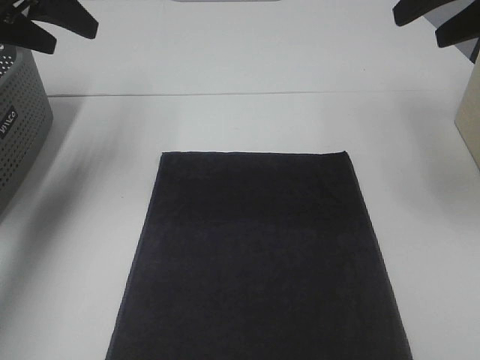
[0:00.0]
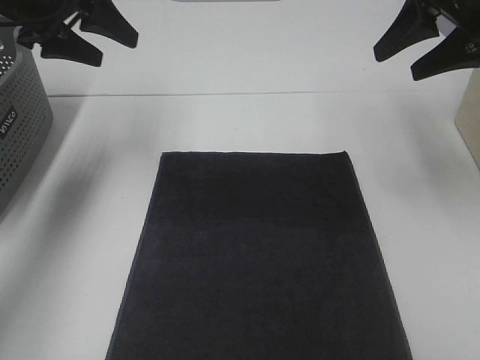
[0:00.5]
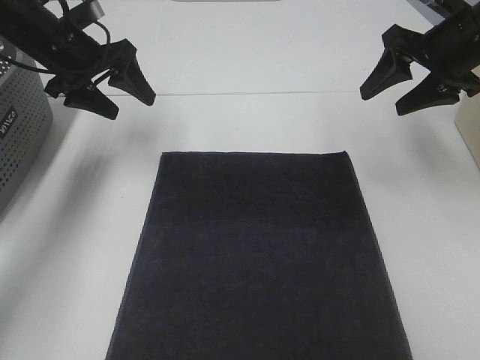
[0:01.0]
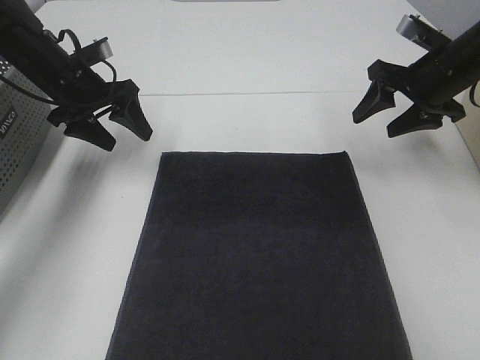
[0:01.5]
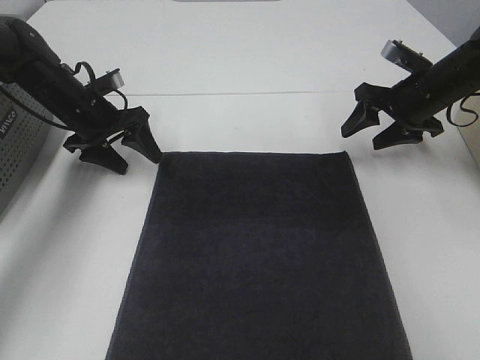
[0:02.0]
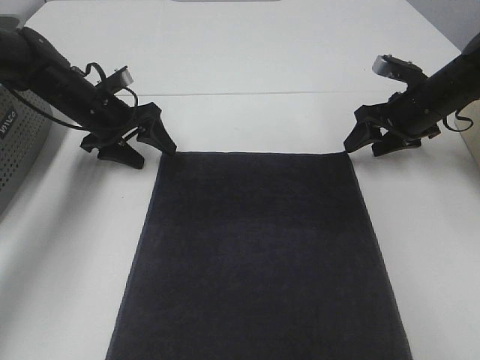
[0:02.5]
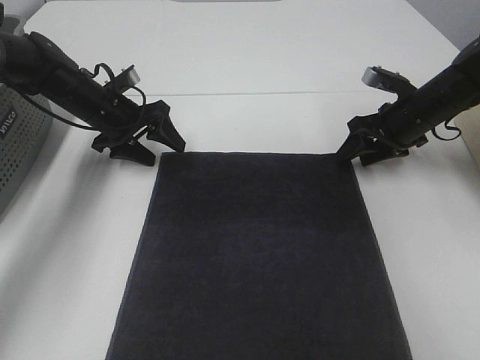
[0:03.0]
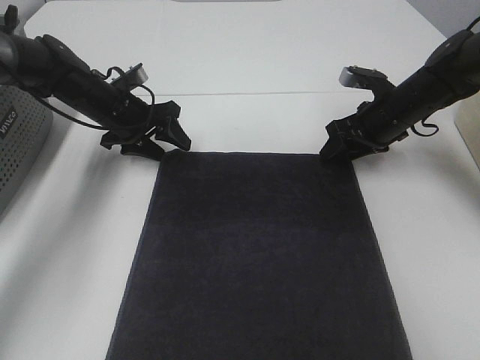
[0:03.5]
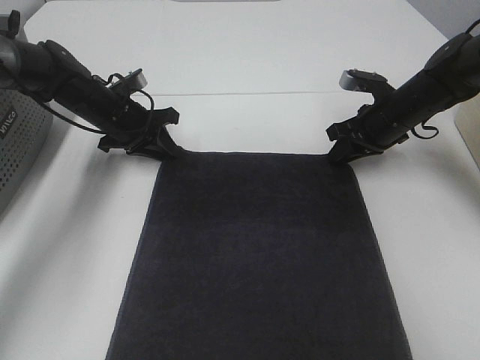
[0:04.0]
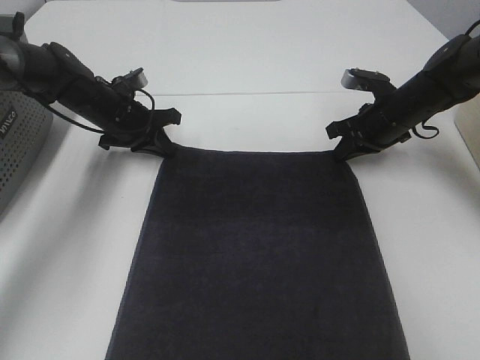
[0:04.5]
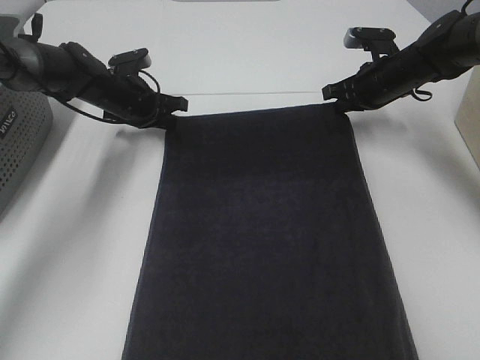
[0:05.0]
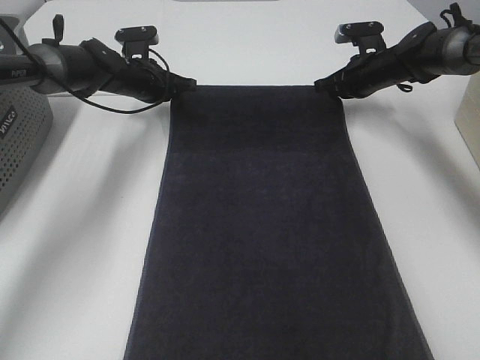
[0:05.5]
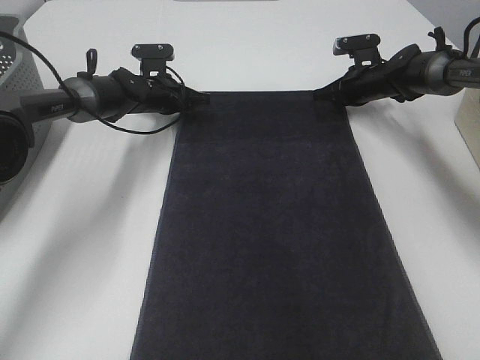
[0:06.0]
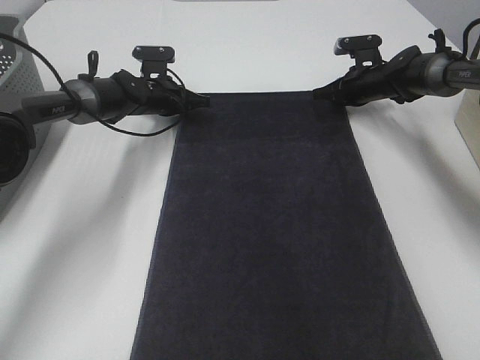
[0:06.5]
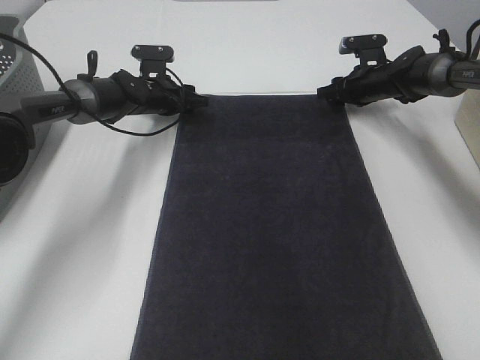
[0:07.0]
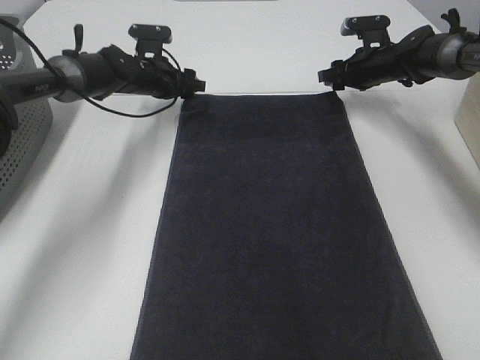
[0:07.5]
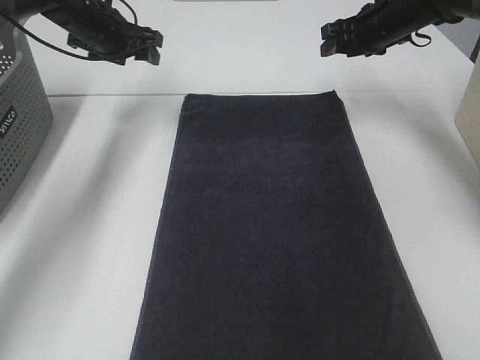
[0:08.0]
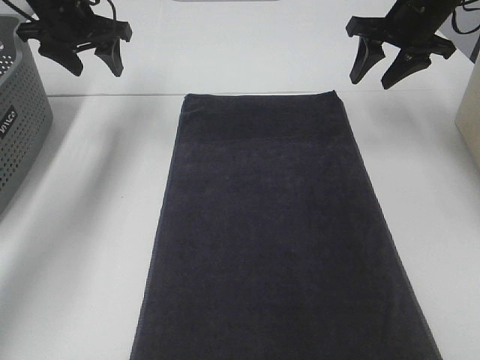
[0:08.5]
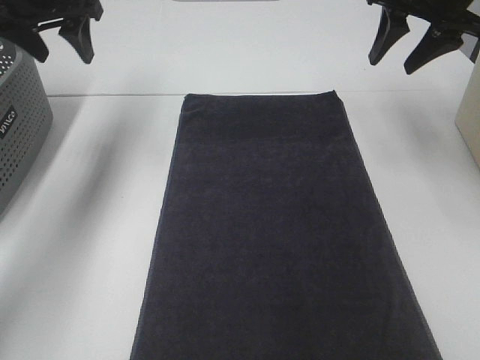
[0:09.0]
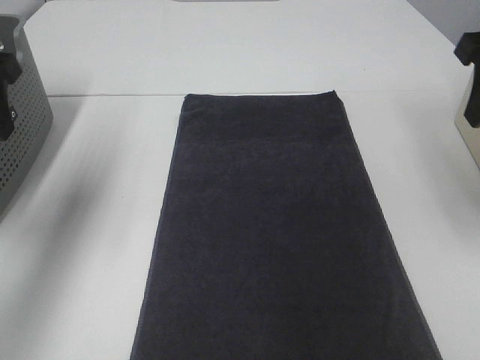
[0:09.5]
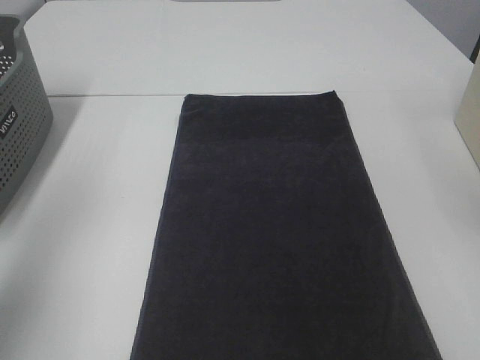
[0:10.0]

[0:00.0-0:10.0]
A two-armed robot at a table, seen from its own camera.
Task of the whole recording: Remove the towel and place it.
0:00.0 to 0:02.0: The left gripper heads downward, covering some 20 cm. Meanwhile the right gripper is displaced downward and forward by some 25 cm.
0:02.0 to 0:04.0: The right gripper moves approximately 5 cm, and closes its fingers. Meanwhile the left gripper closes.
0:04.0 to 0:06.0: The grippers both shift forward by some 10 cm.
0:06.0 to 0:08.0: The left gripper travels upward and to the left by about 15 cm, and opens its fingers, while the right gripper goes roughly 10 cm upward, and opens up.
0:08.0 to 0:10.0: Both grippers move backward, about 40 cm.

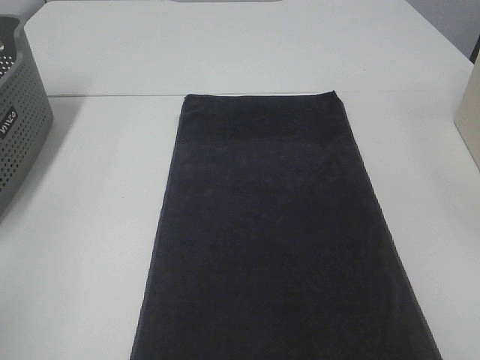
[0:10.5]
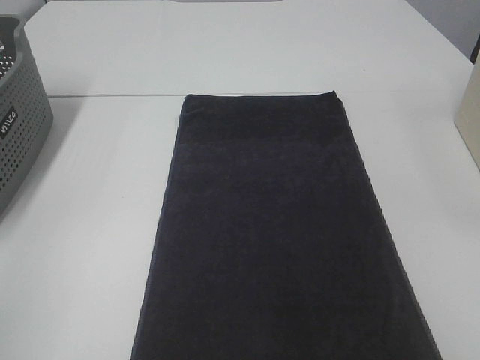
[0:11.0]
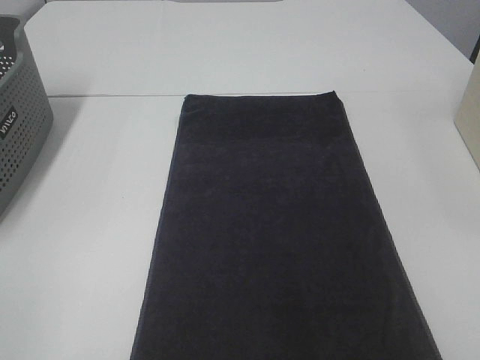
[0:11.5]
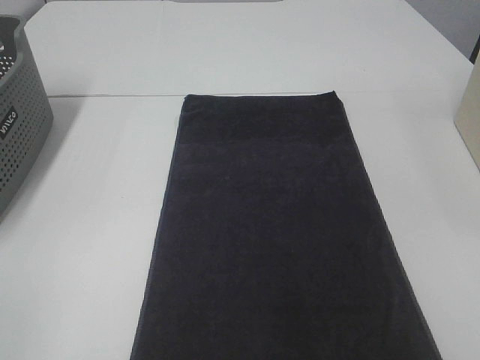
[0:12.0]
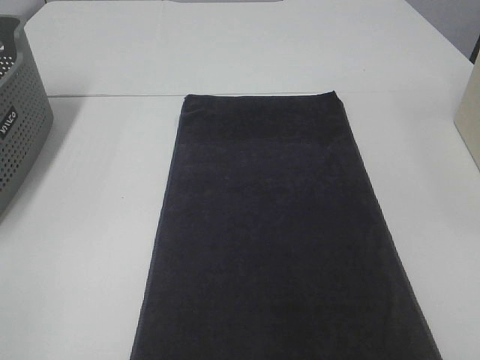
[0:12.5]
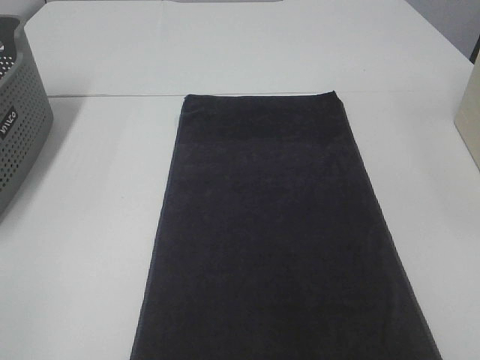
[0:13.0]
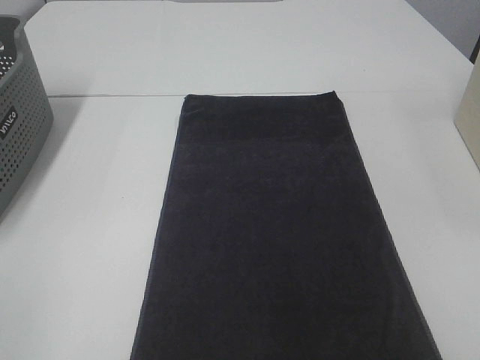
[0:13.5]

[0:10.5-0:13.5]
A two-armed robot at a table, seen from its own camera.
Task of the whole recording: Remove the towel and place it.
0:12.0 to 0:13.5: Both grippers stay about where they are.

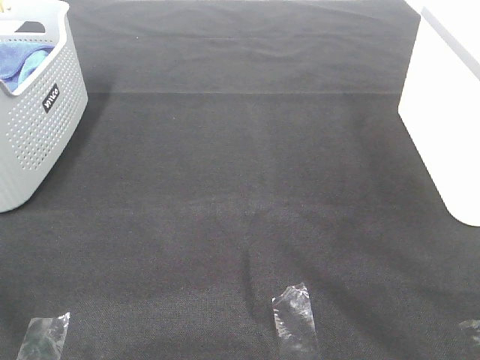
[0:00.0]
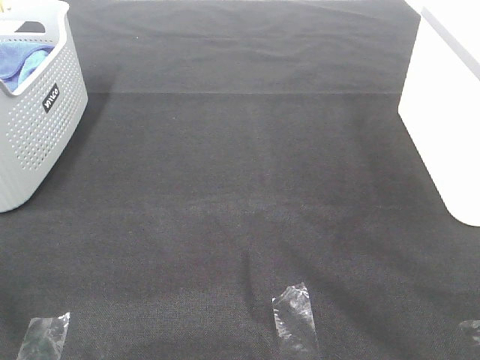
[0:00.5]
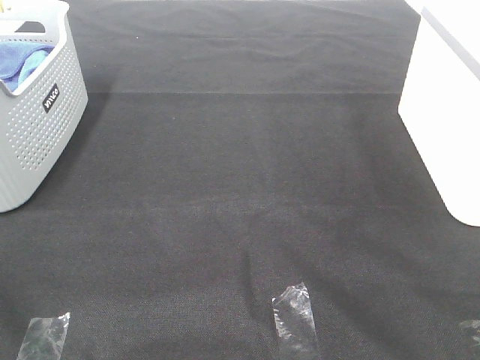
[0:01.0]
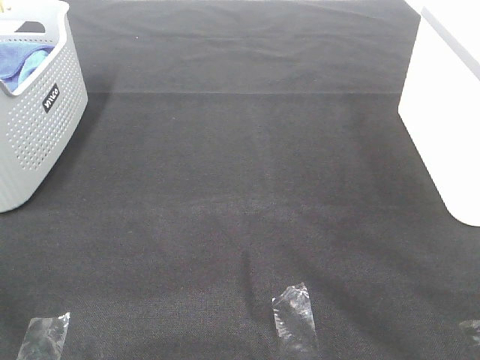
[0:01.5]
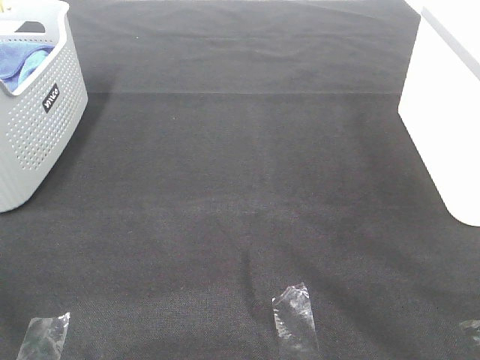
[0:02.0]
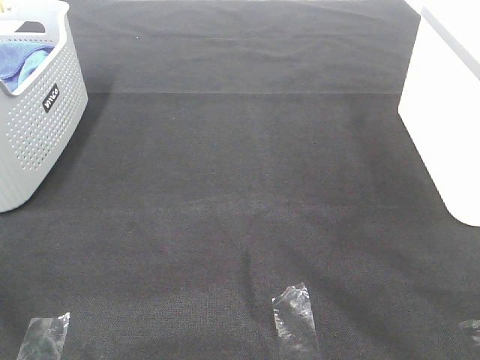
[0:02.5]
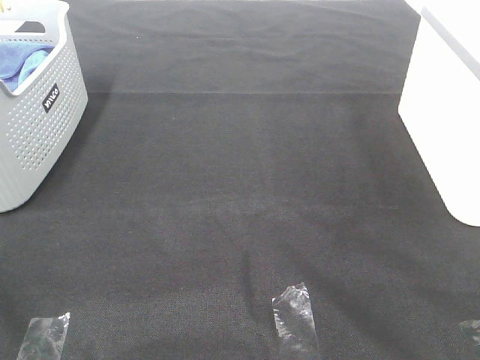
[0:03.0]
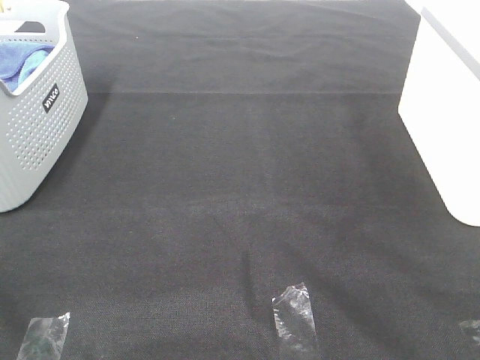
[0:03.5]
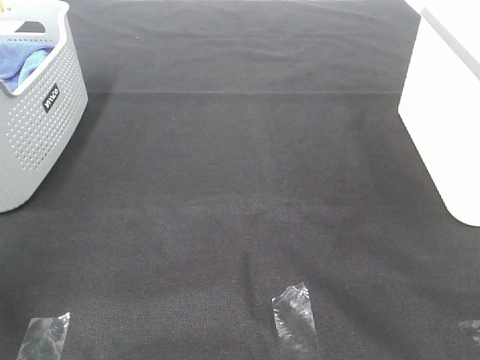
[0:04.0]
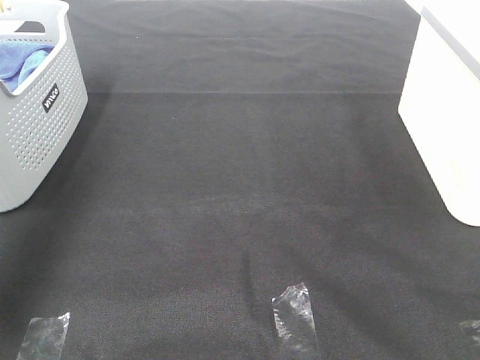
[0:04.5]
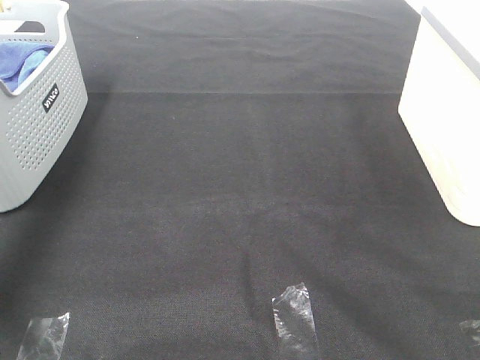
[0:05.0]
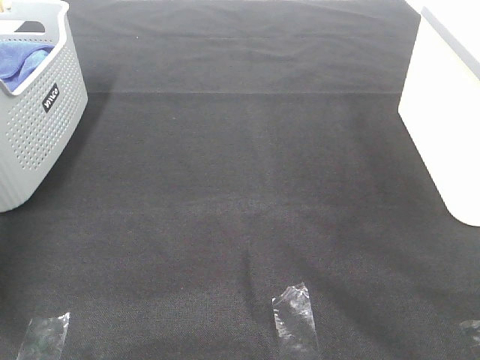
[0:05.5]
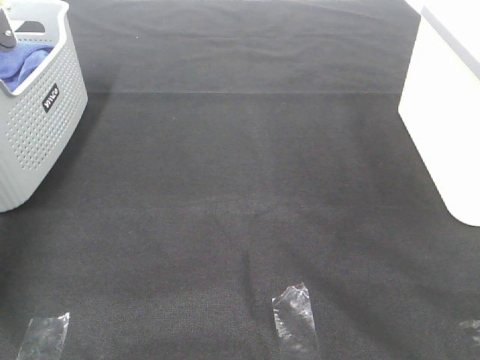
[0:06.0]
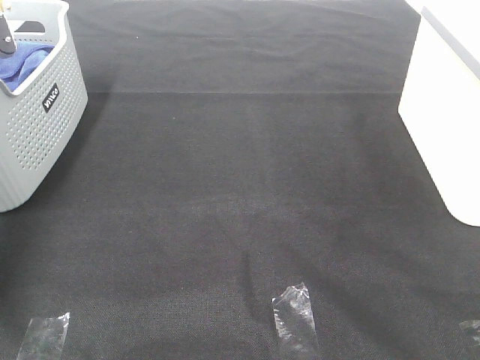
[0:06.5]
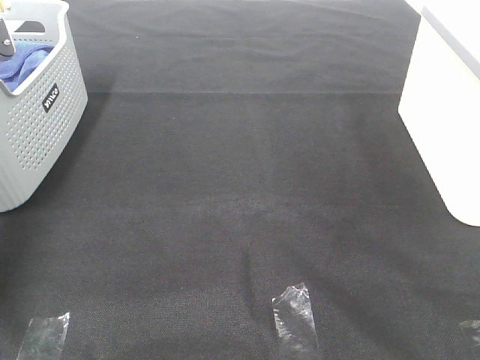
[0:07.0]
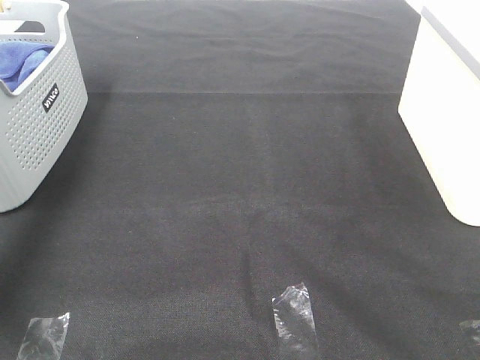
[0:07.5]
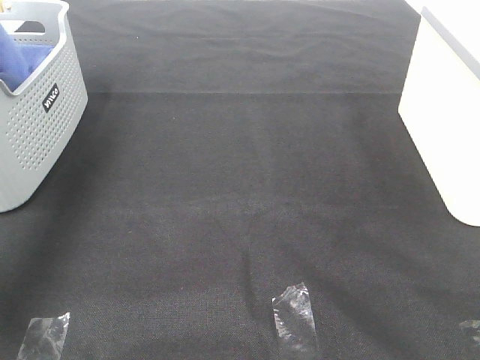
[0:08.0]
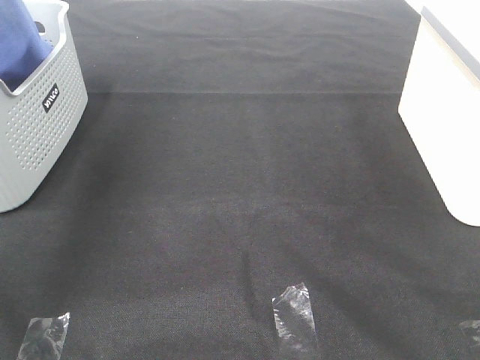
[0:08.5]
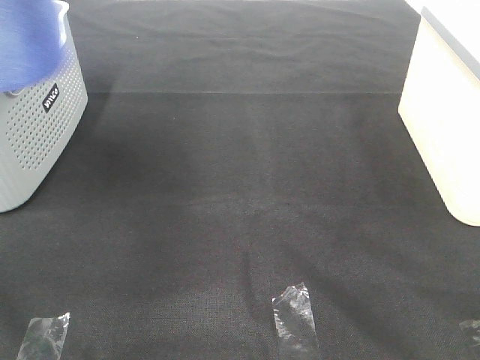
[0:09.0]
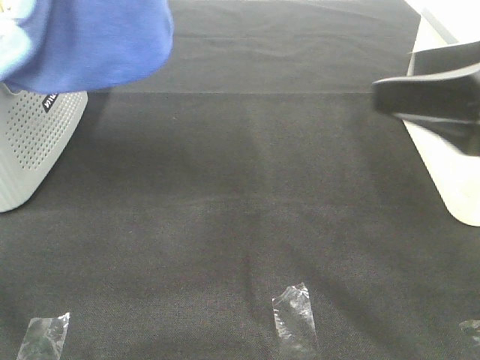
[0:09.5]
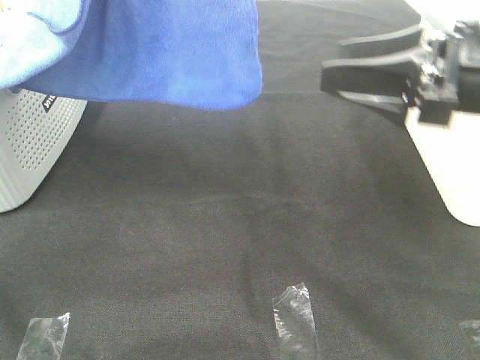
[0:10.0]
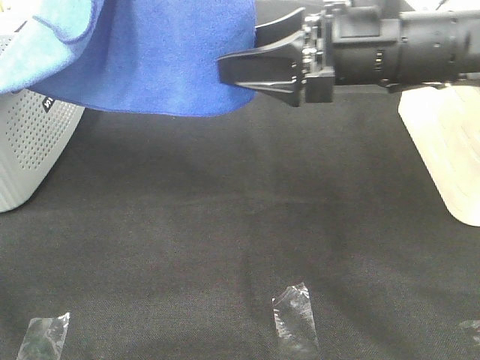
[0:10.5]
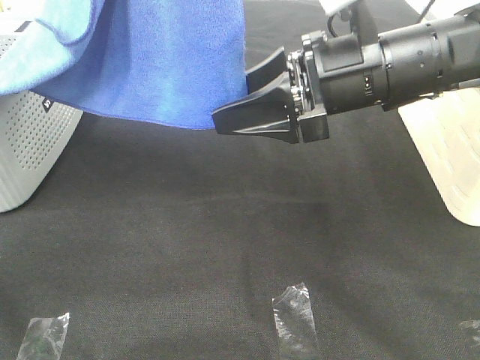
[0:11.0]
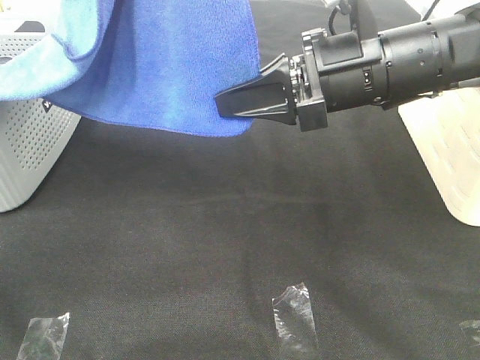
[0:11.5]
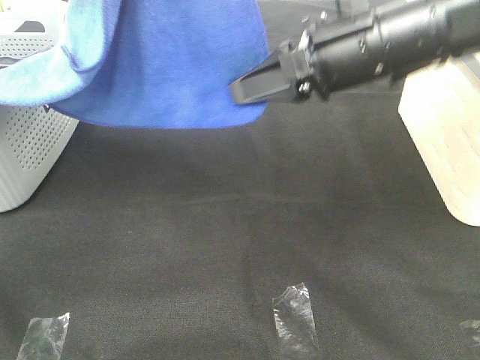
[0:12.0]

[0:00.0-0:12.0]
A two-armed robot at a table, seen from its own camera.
Task of the whole recording: Remove the towel and place it.
Step, 0:09.0 to 0:11.0: Right hand: grab a corner of the blue towel and straighten it.
0:00.0 to 0:02.0: Neither gripper changes place.
0:04.0 to 0:06.0: The left gripper shifts some 40 cm forward and downward.
0:06.0 to 0:08.0: The left gripper travels upward and backward by some 30 cm, and closes up.
0:08.0 to 0:10.0: The left gripper heads to the right and backward, covering approximately 30 cm. Meanwhile the right gripper goes approximately 25 cm forward.
0:10.0 to 0:12.0: The right gripper moves to the left and forward, roughly 10 cm, and closes its fingers.
